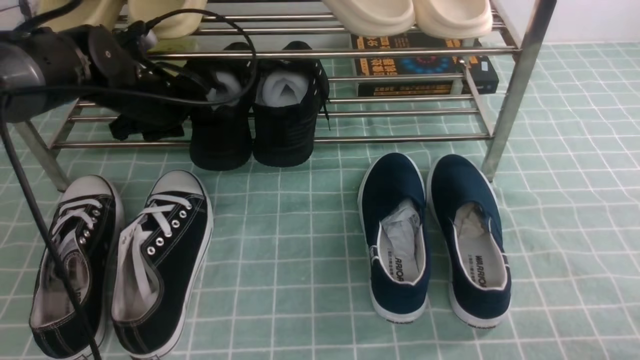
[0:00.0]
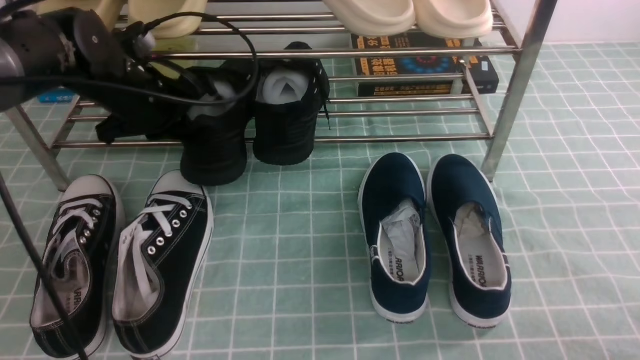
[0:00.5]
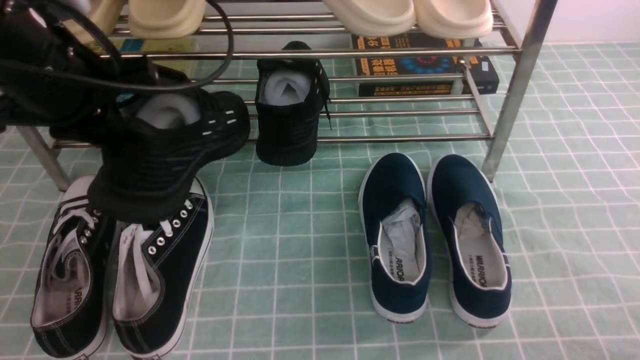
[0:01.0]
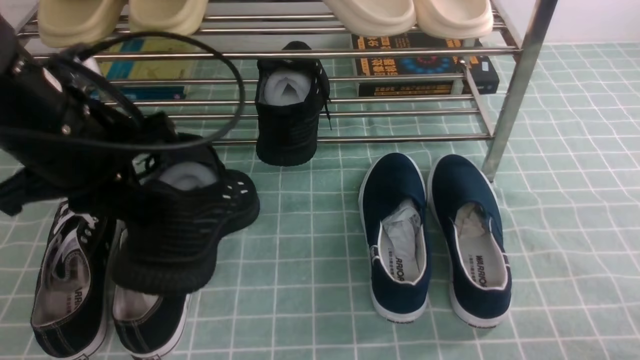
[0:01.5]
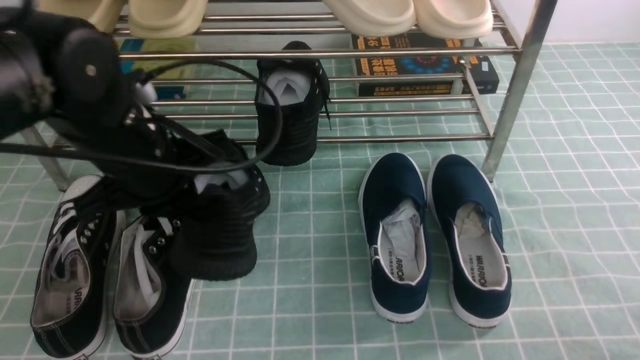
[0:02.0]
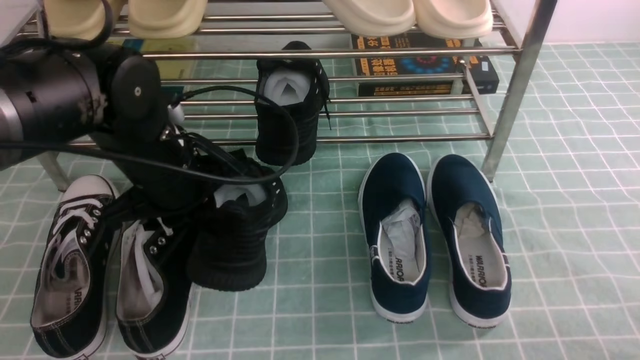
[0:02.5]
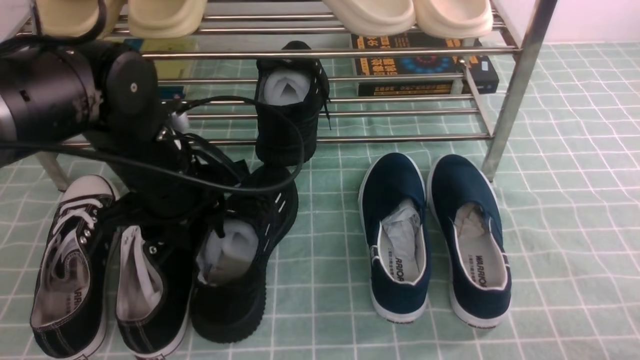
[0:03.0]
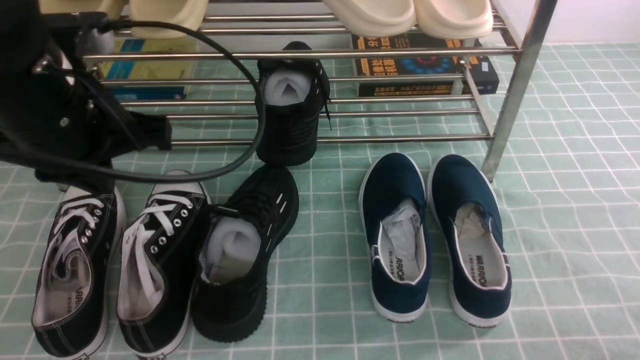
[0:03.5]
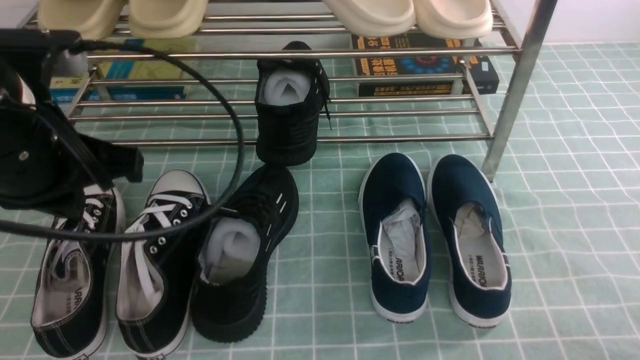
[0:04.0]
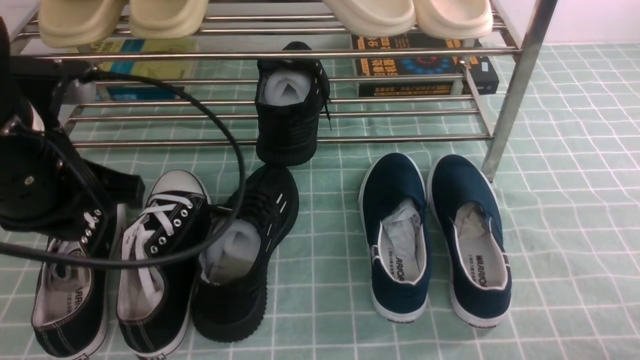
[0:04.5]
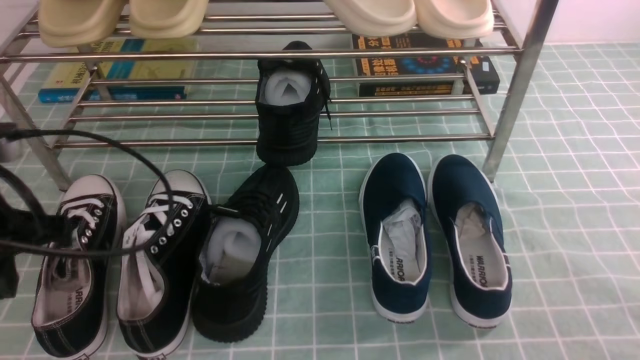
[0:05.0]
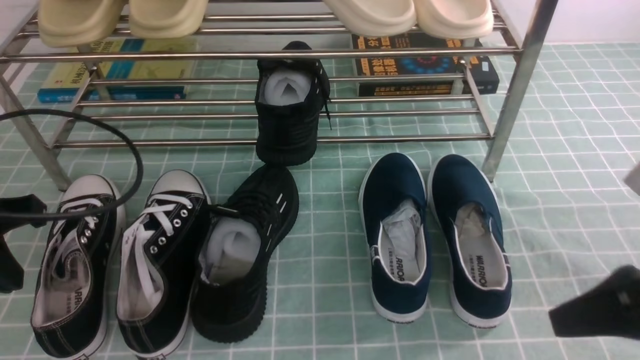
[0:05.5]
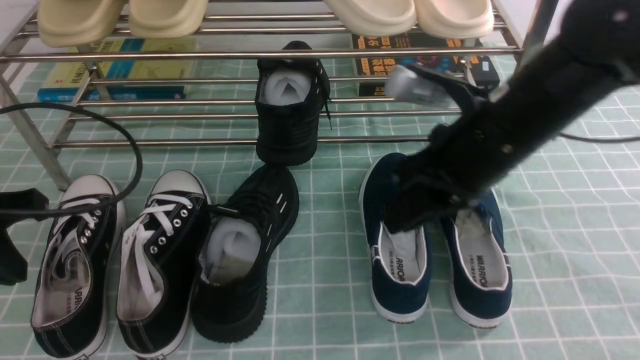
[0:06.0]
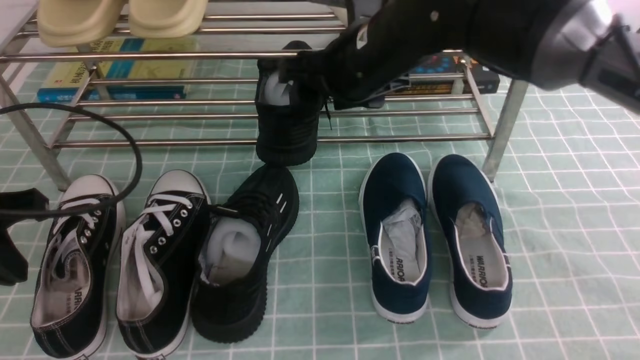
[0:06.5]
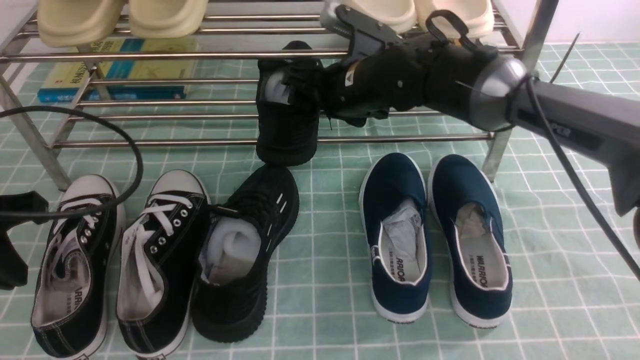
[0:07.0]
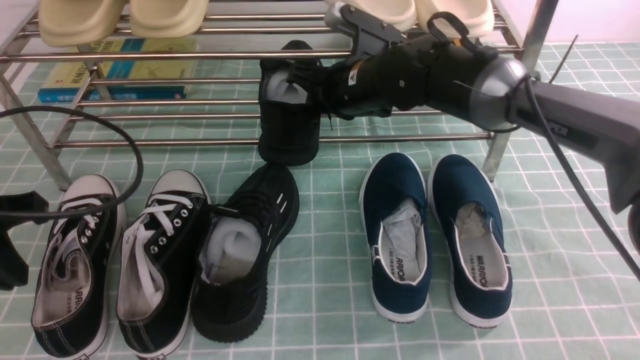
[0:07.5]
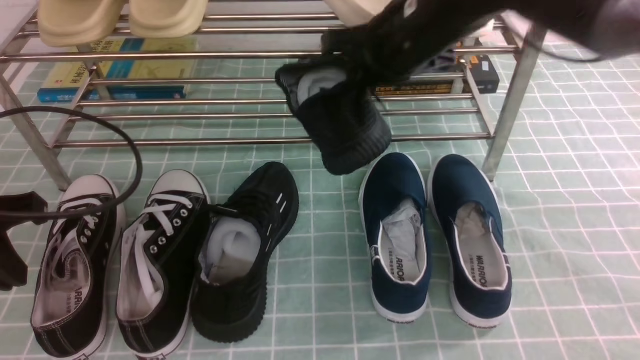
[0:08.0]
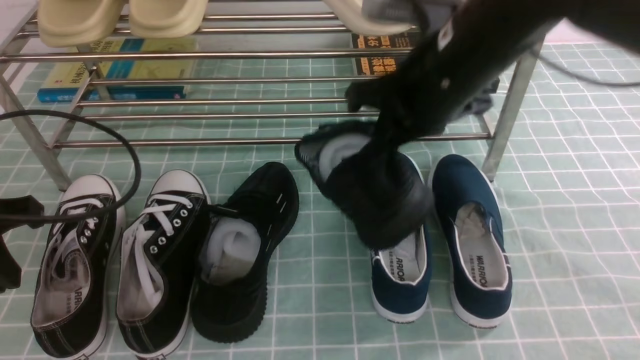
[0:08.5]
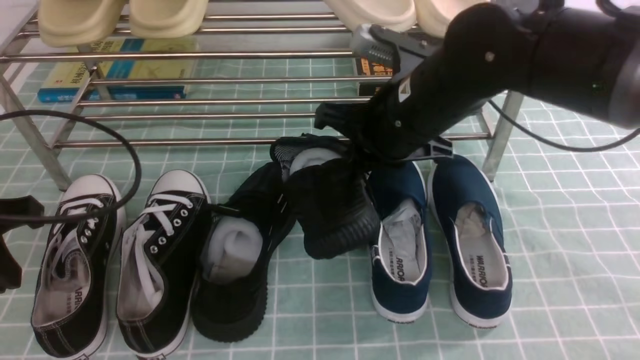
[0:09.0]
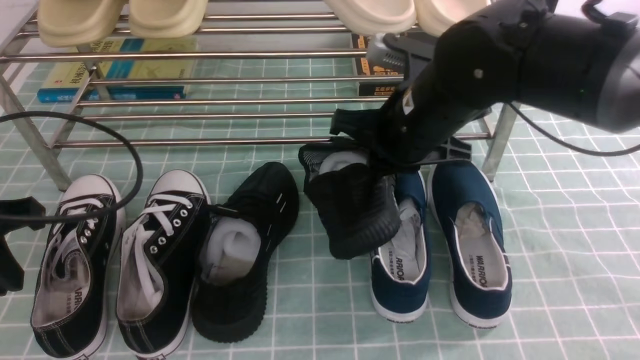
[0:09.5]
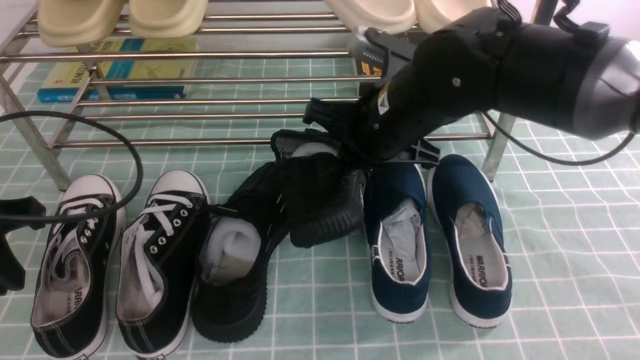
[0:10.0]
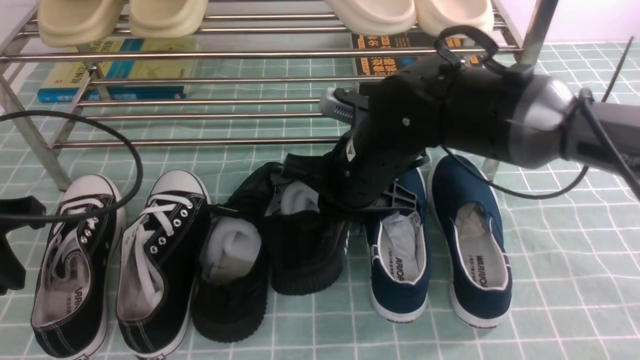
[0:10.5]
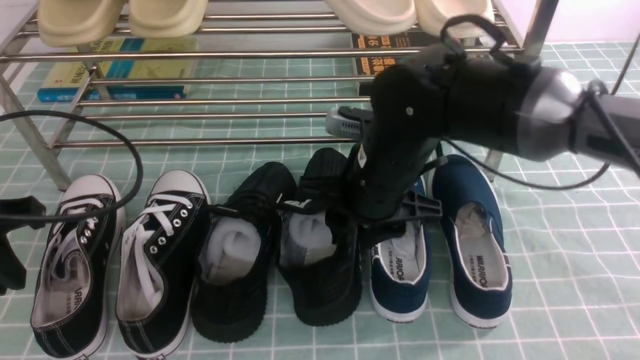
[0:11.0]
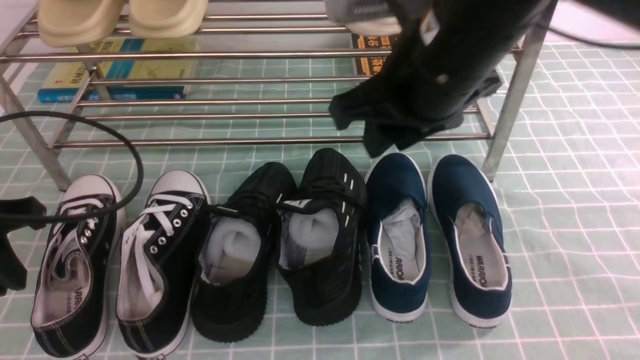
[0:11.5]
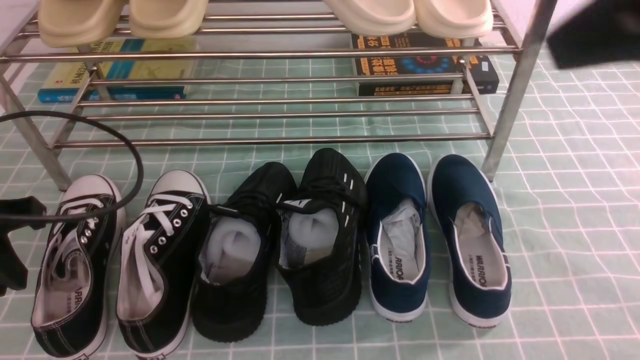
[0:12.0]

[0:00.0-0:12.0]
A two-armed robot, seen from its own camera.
Step, 0:00.5 to 0:03.0: Use your left arm to remove the clamped shoe from the shoe rack and put it down.
Step, 0:03.5 to 0:07.0: use the right arm to clamp a shoe in the middle of the shoe rack.
Step, 0:07.5 to 0:11.0: use the right arm to take out the clamped shoe from the shoe rack and put it down.
0:00.0 to 0:02.0: The left gripper travels backward by about 15 cm, and closes its fingers.
0:02.0 to 0:04.0: The left gripper shifts roughly 10 cm upward and backward, and opens, then closes once more.
0:04.0 to 0:06.0: The left gripper travels to the left and downward by roughly 10 cm; the right gripper is displaced forward, to the left and upward by some 35 cm, and closes, then reopens.
0:06.0 to 0:08.0: The right gripper shifts about 10 cm forward, and opens, then closes once more.
0:08.0 to 0:10.0: The right gripper is displaced downward by about 5 cm.
0:10.0 to 0:12.0: The right gripper travels upward, backward and to the right by roughly 30 cm, and opens and closes again.

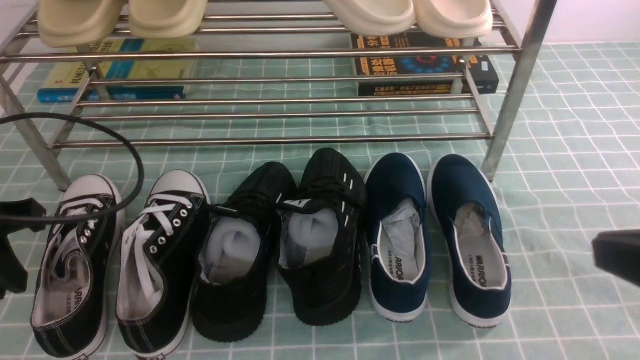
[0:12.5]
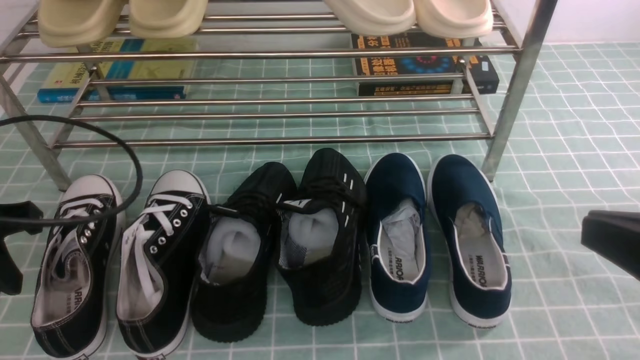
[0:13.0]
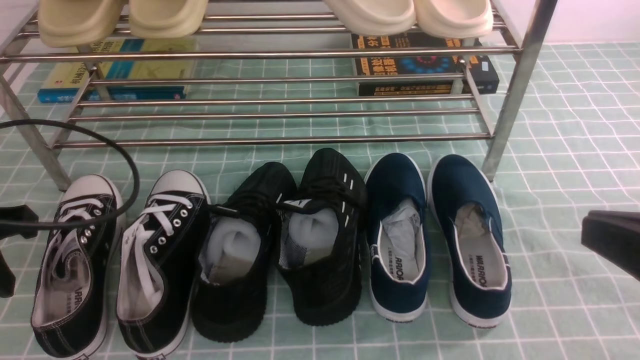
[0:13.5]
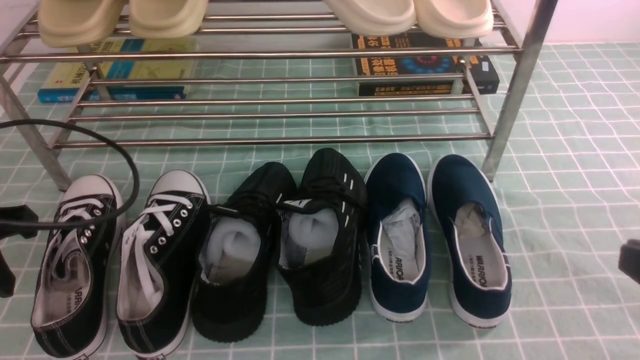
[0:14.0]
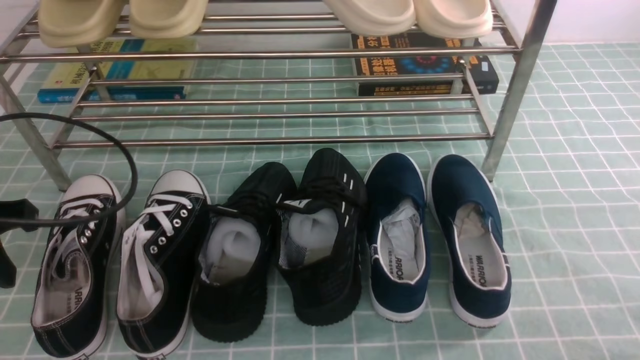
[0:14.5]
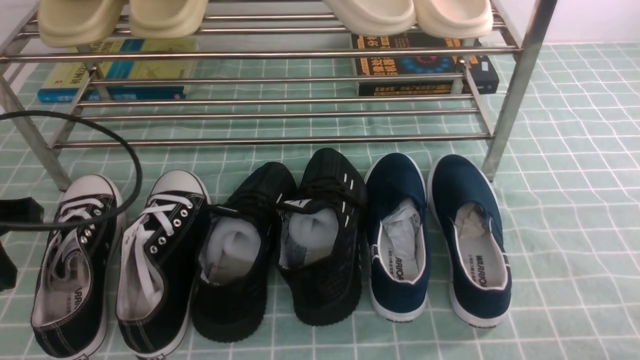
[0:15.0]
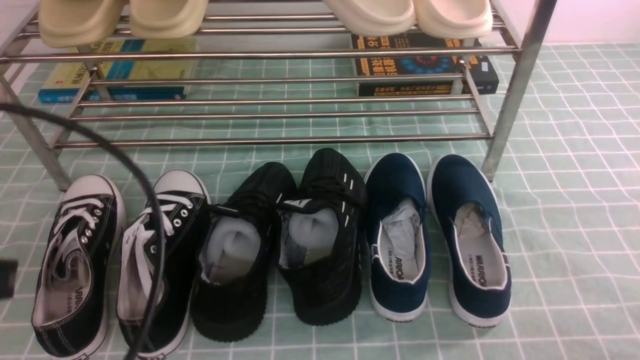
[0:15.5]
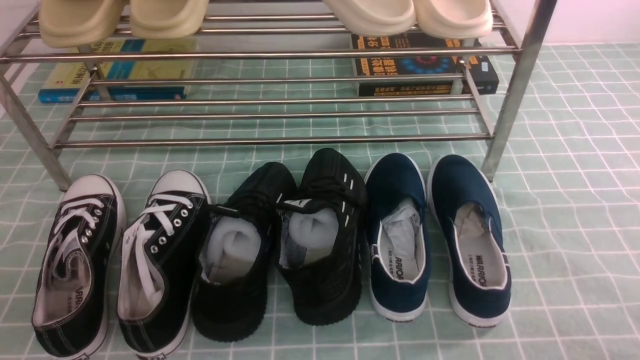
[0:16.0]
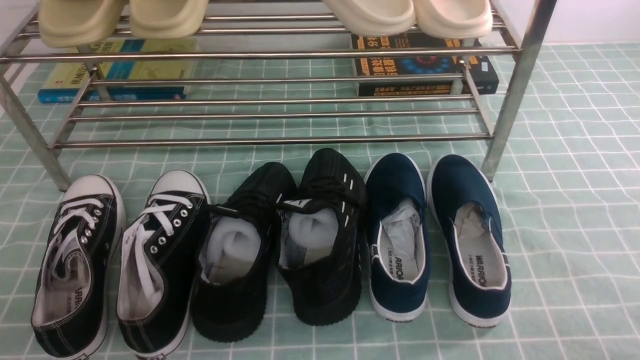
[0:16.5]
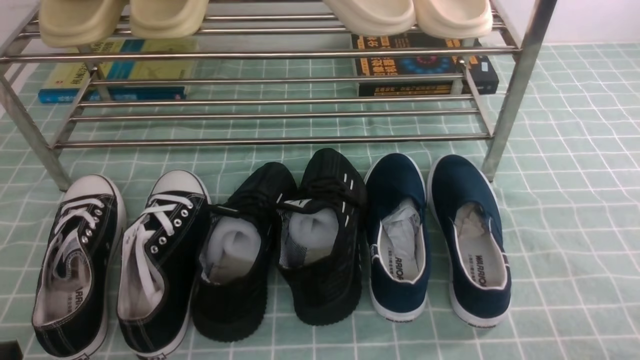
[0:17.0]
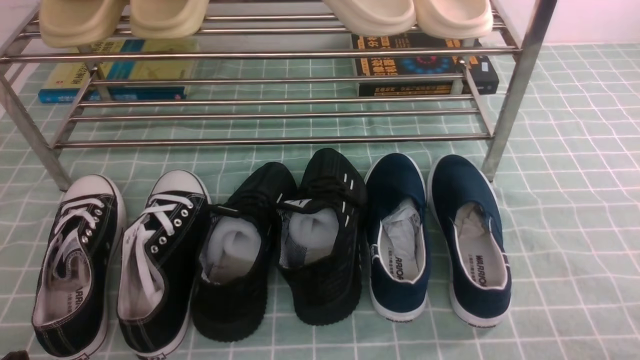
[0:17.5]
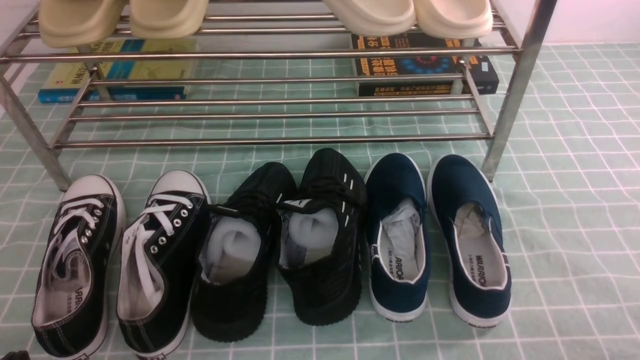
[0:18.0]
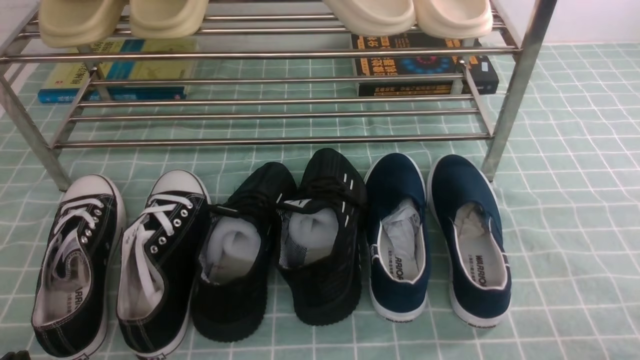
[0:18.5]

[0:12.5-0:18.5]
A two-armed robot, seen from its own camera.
0:12.5 to 0:14.5: The right gripper goes approximately 20 cm downward and to the right.
0:14.5 to 0:16.5: The left gripper heads backward, covering approximately 20 cm.

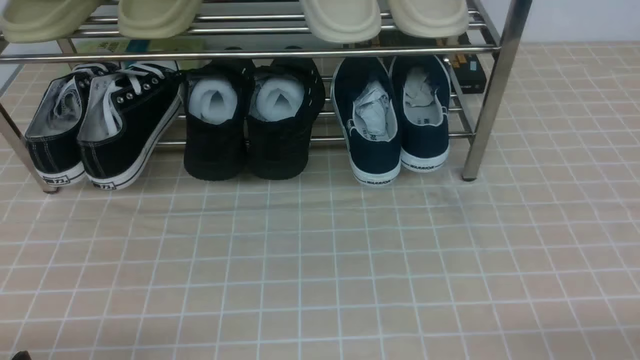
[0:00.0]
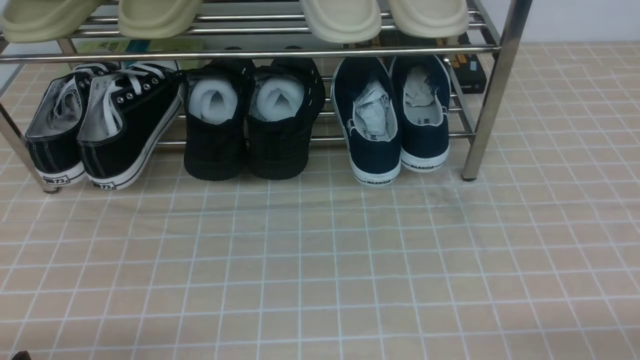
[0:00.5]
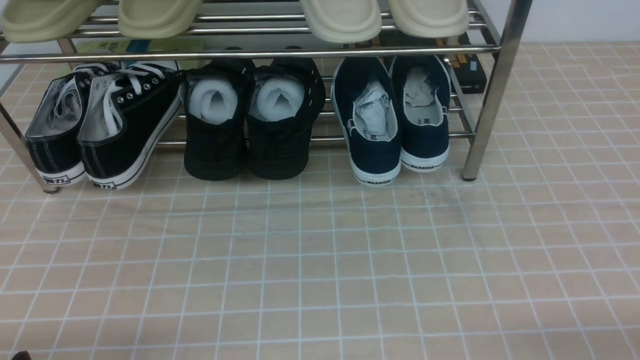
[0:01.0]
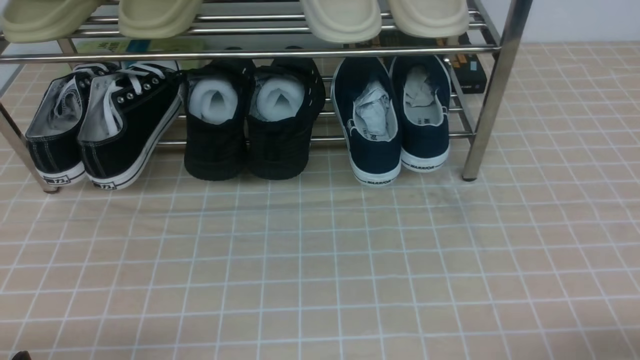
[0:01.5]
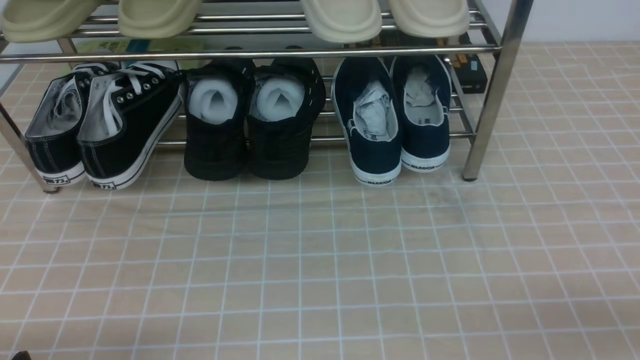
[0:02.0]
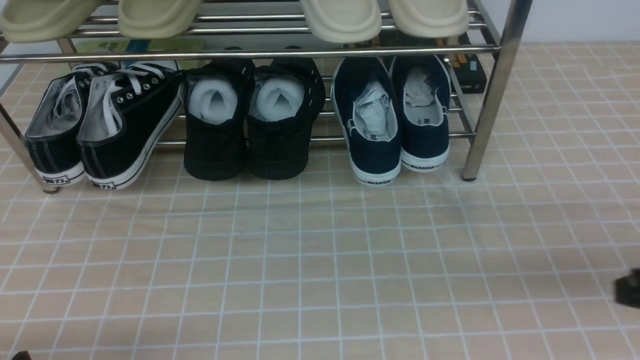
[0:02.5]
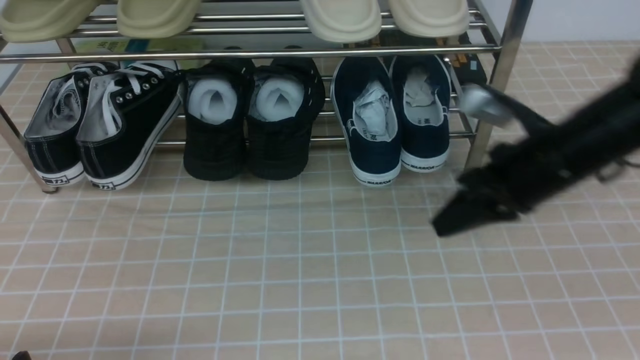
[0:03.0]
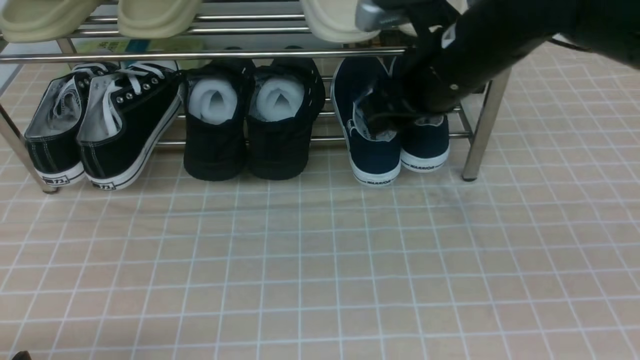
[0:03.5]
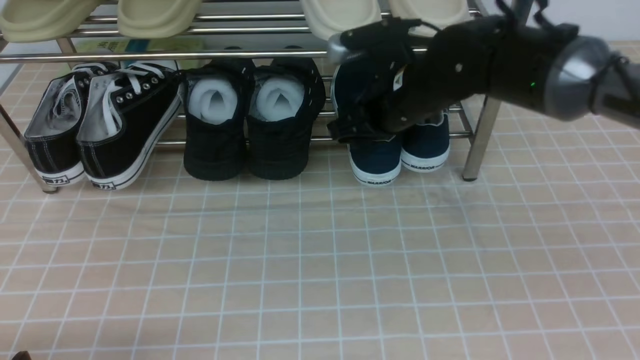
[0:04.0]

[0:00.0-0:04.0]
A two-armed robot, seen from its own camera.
0:02.0 to 0:04.0: The right gripper heads forward and to the left, covering roughly 40 cm, and opens its fingers.
